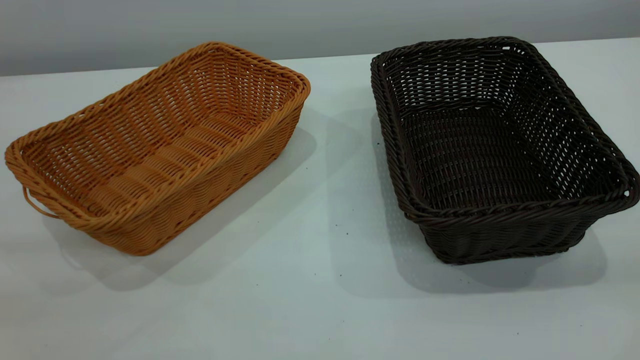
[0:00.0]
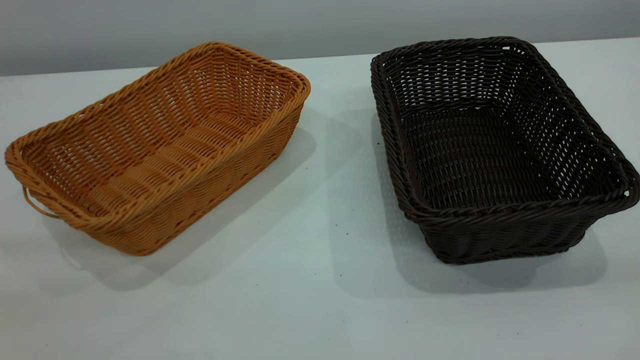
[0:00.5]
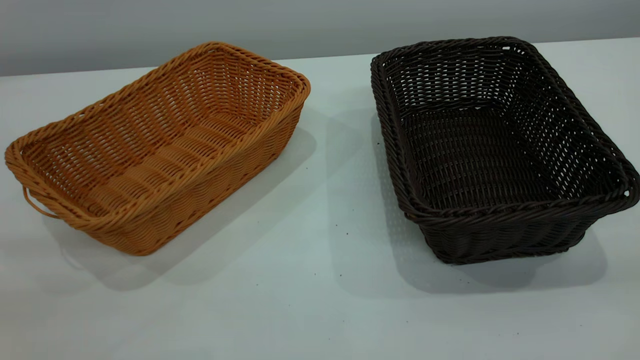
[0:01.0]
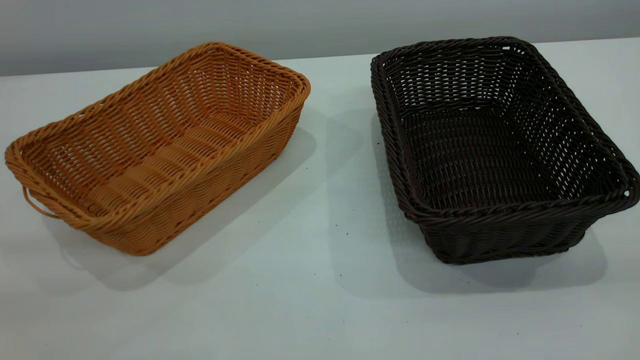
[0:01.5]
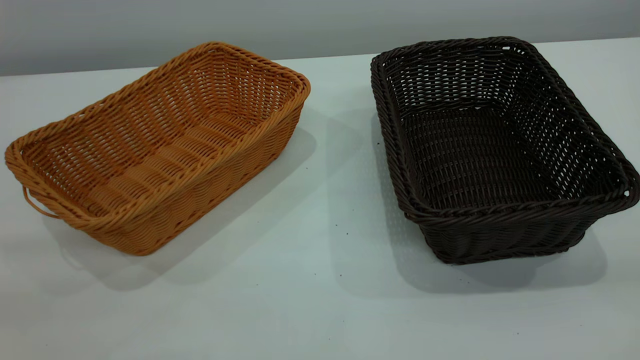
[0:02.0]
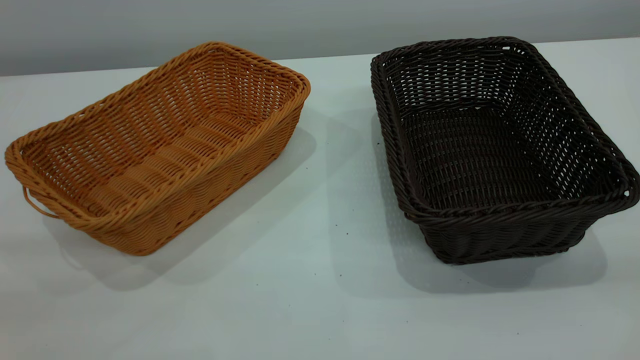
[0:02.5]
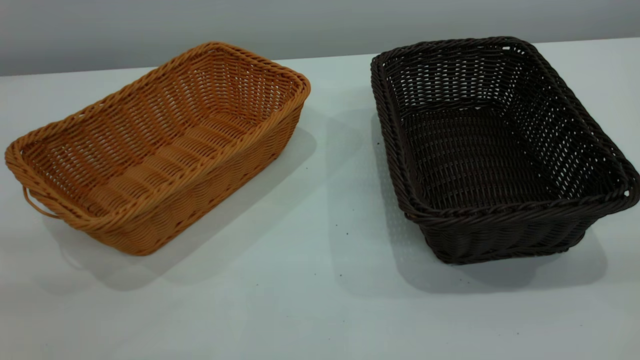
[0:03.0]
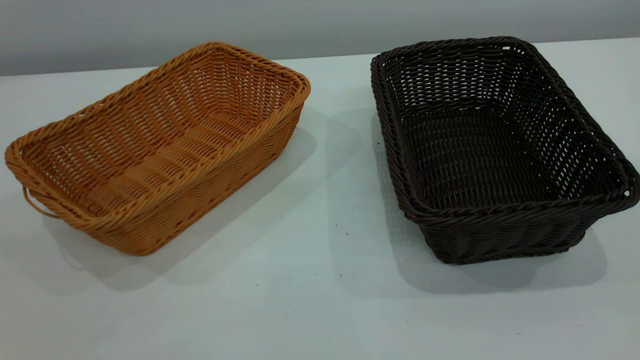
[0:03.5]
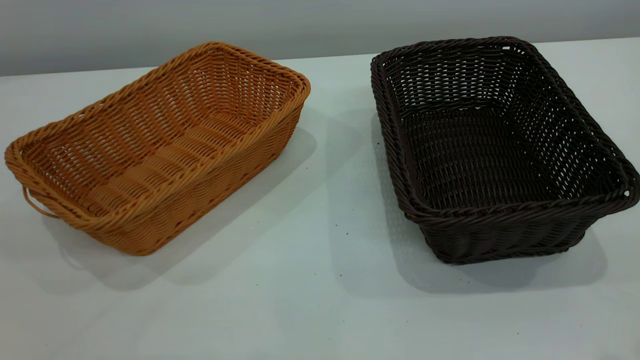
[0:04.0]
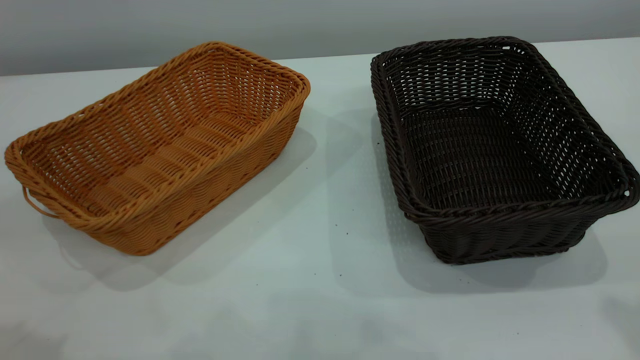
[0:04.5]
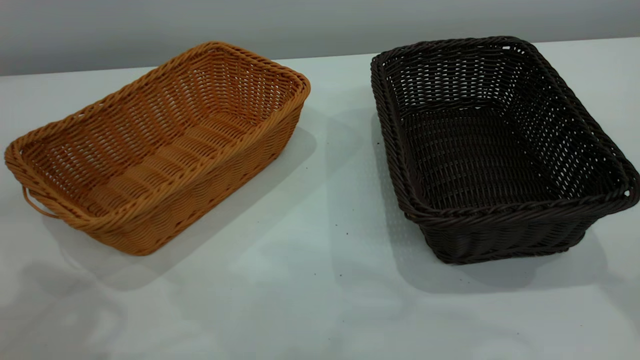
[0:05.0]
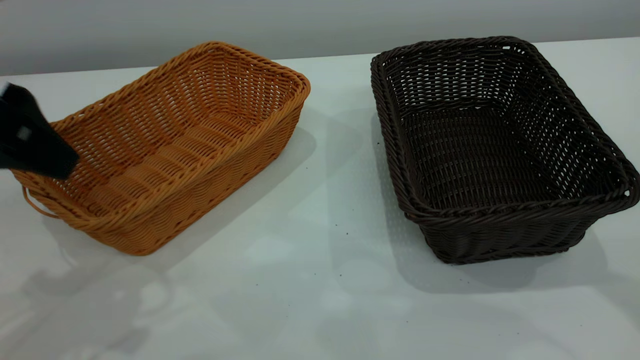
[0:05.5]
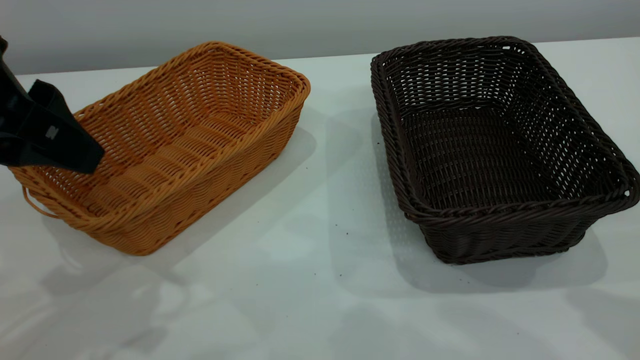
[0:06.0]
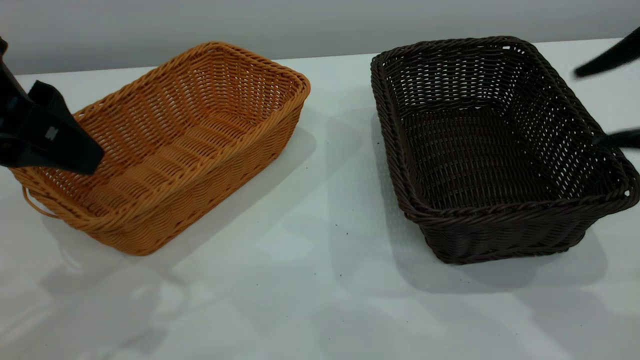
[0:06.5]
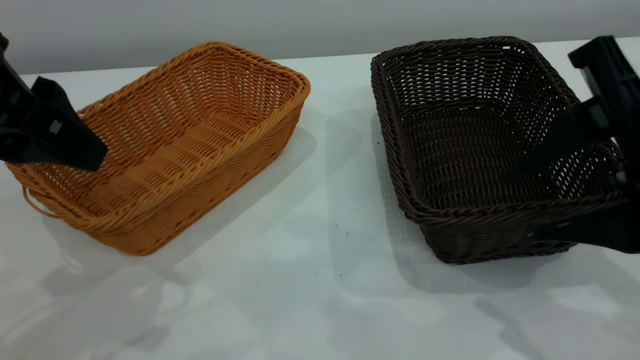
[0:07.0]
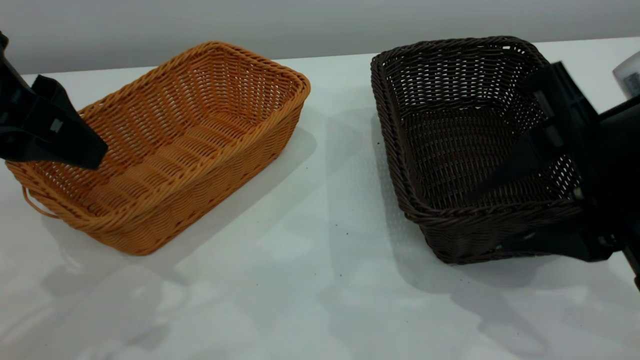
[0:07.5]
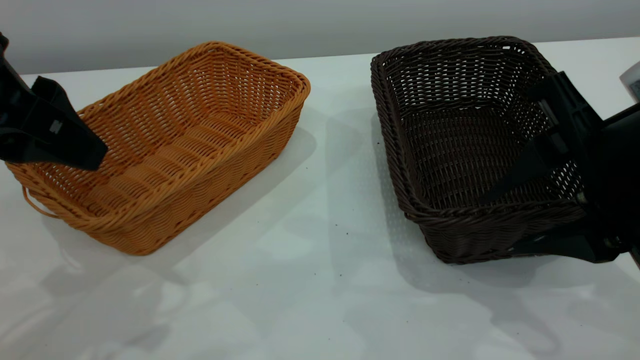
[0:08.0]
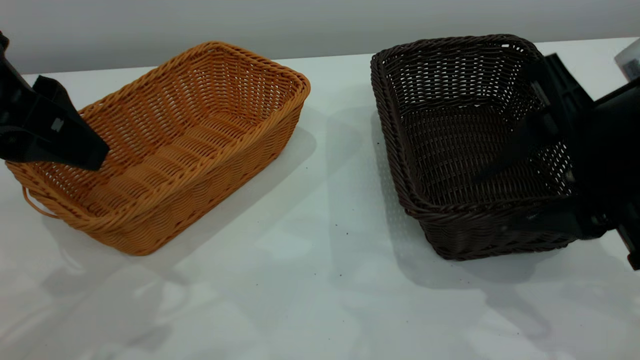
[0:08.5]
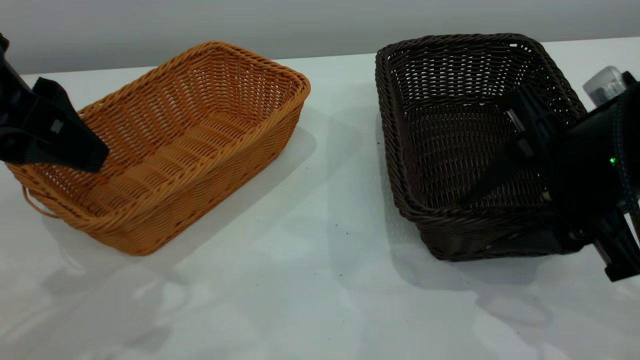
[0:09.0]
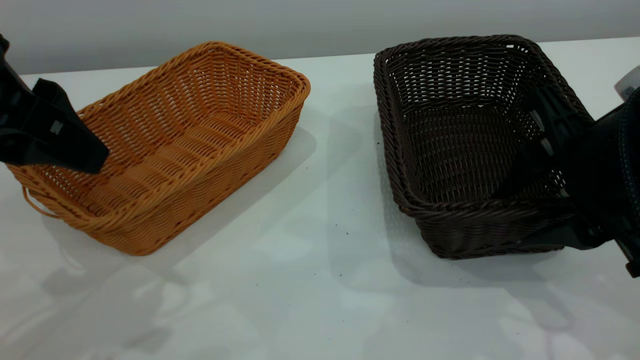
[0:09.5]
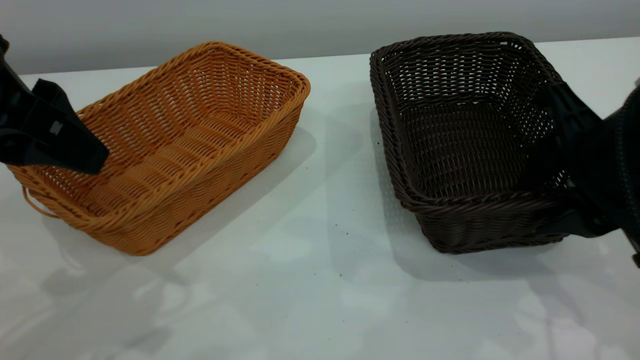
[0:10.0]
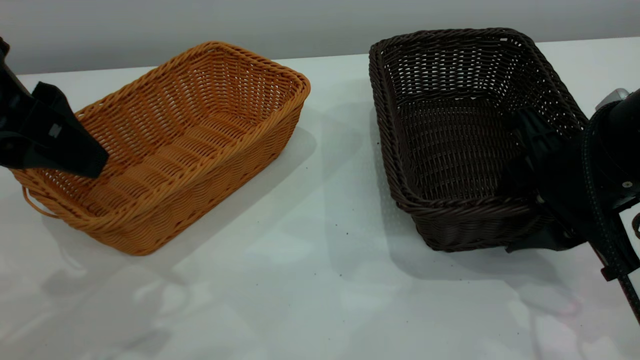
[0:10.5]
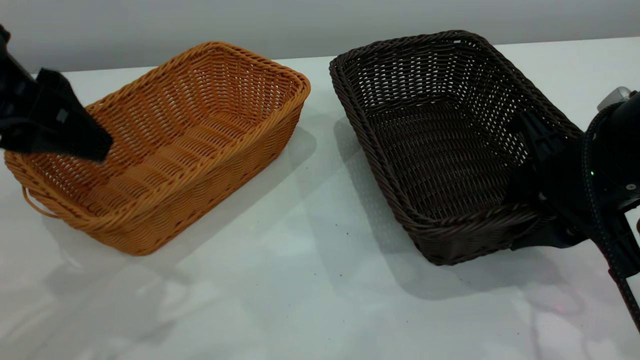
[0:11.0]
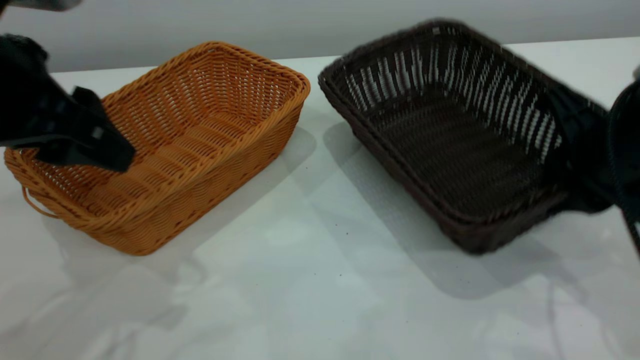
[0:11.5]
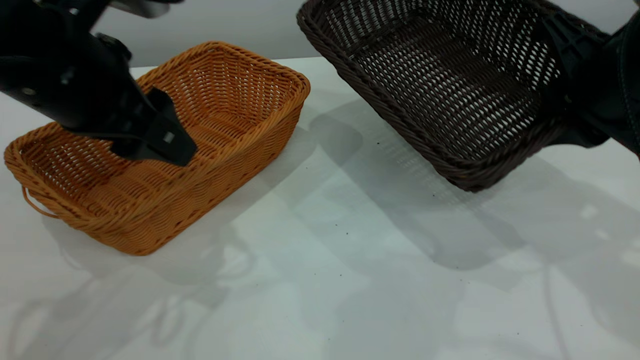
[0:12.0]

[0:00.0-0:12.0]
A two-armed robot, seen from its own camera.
Task of the whole recording: the left gripper grasp the brown basket and place it in the center of the table, the right gripper grasp the black basket and place it inside the brown one.
Step, 0:00.0 to 0:11.5: Pick up the light basket with the right gripper.
0:00.0 to 0:02.0: Neither gripper changes place.
0:04.0 to 0:06.0: The left gripper travels forward and downward by about 20 cm.
0:06.0 to 0:08.0: The right gripper shifts about 15 cm downward and to the left.
0:08.0 to 0:10.0: The grippers make only small movements.
0:10.0 to 0:12.0: The left gripper moves forward, some 5 cm. The right gripper moves some 5 cm, and closes its fingers.

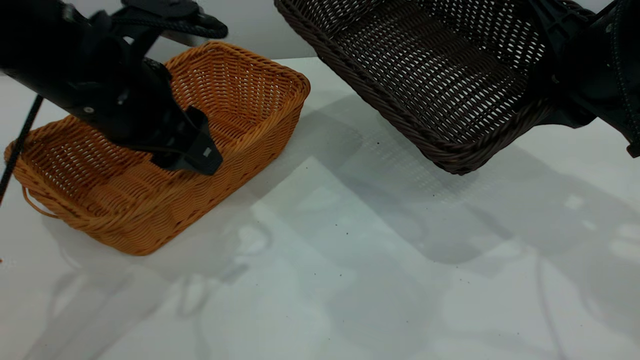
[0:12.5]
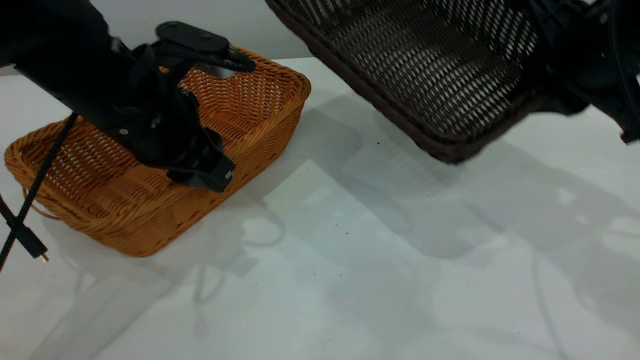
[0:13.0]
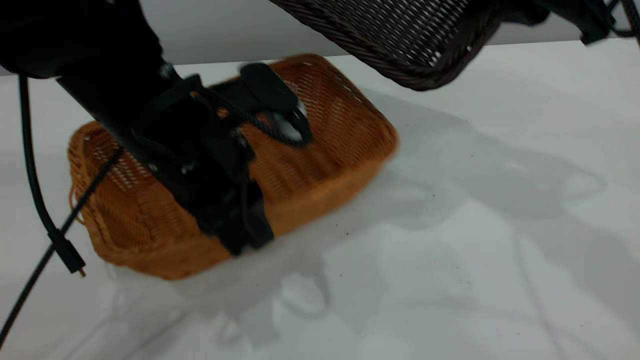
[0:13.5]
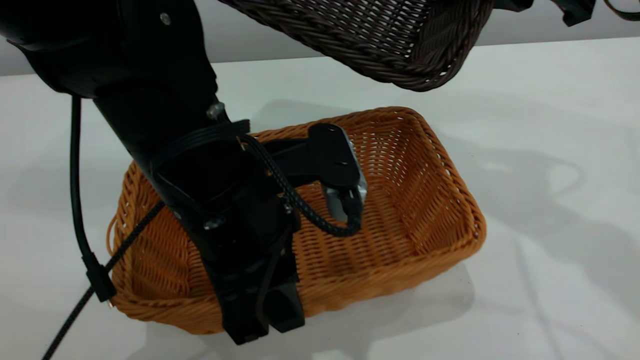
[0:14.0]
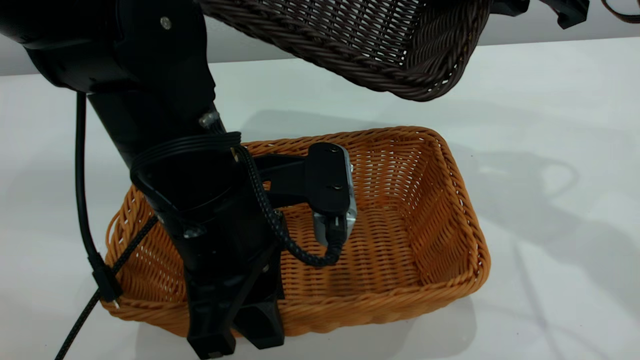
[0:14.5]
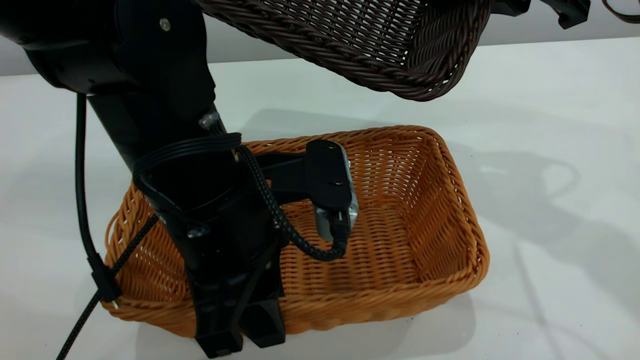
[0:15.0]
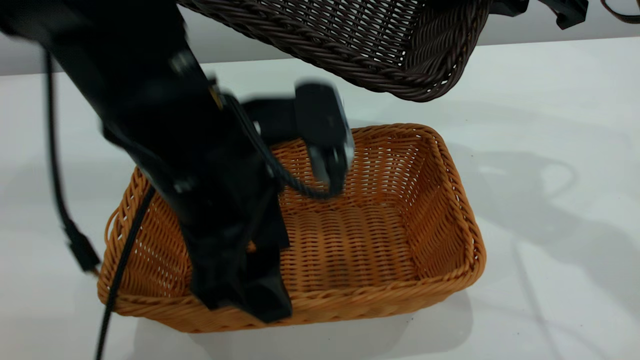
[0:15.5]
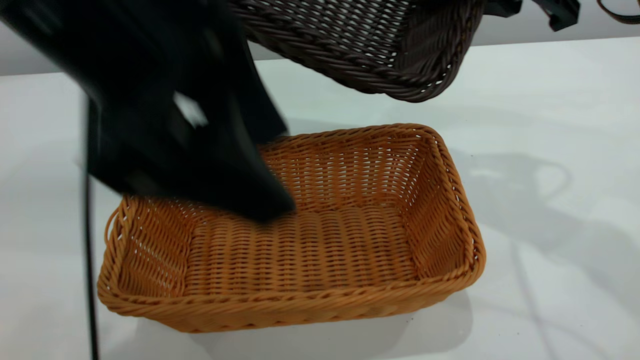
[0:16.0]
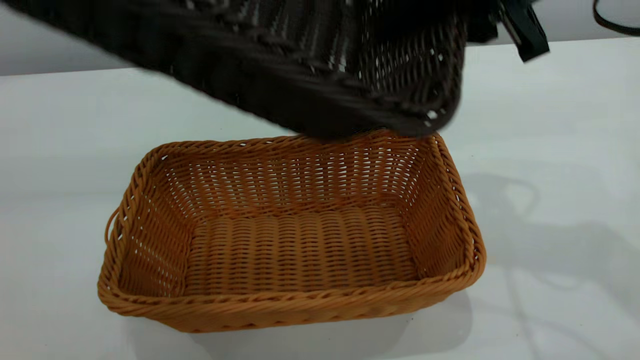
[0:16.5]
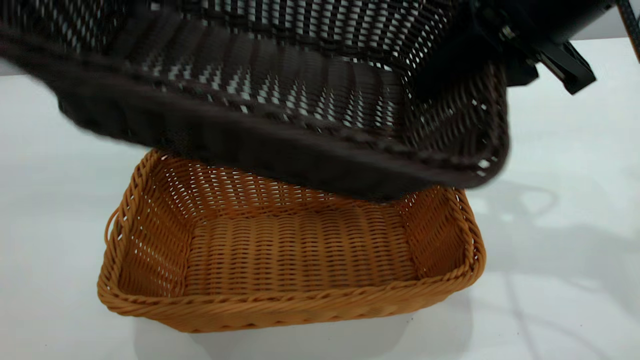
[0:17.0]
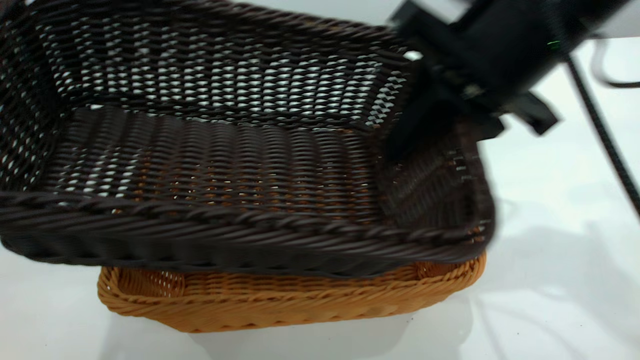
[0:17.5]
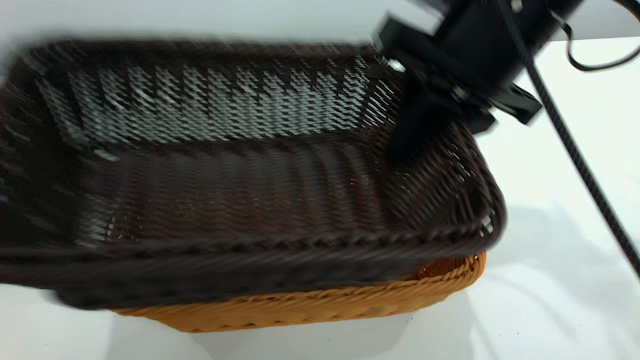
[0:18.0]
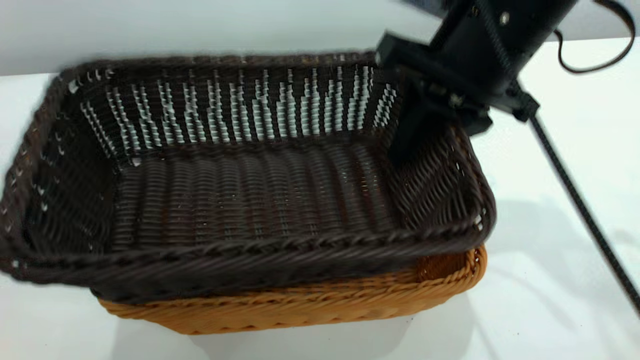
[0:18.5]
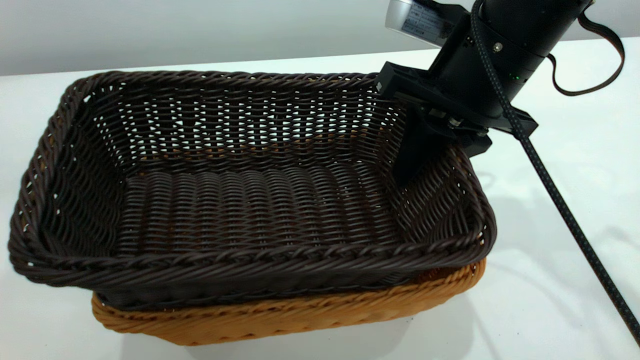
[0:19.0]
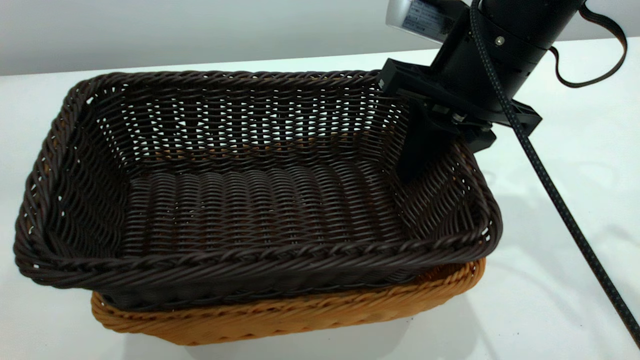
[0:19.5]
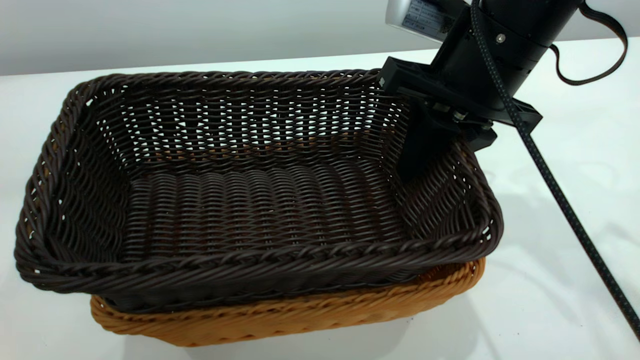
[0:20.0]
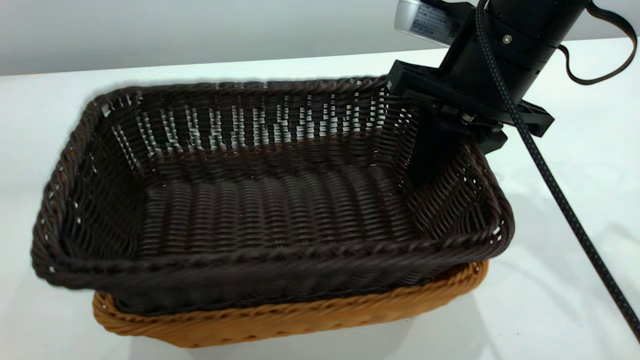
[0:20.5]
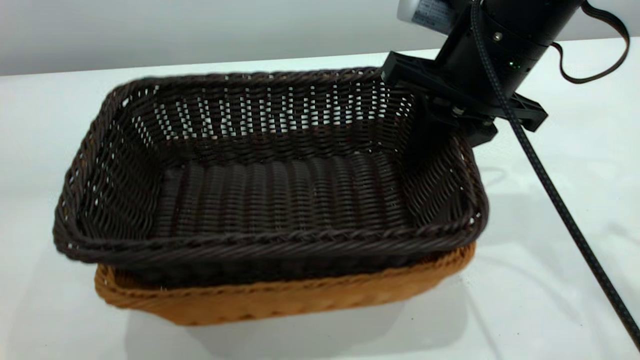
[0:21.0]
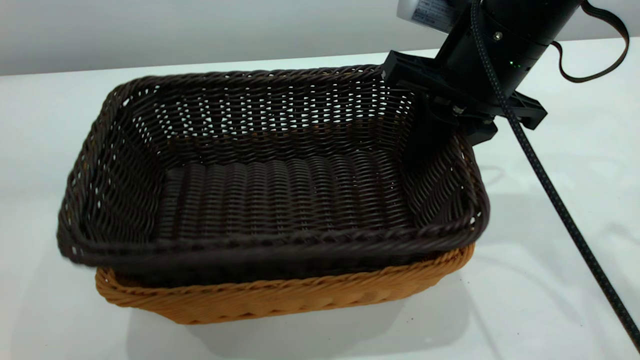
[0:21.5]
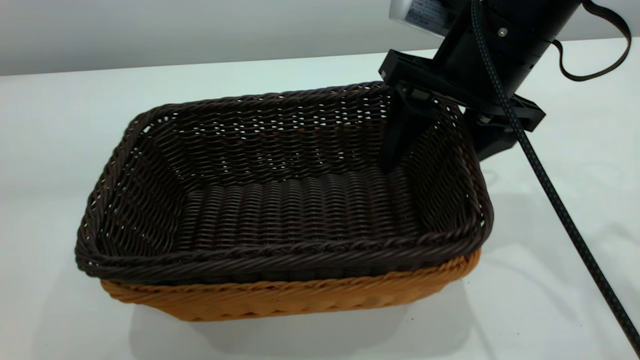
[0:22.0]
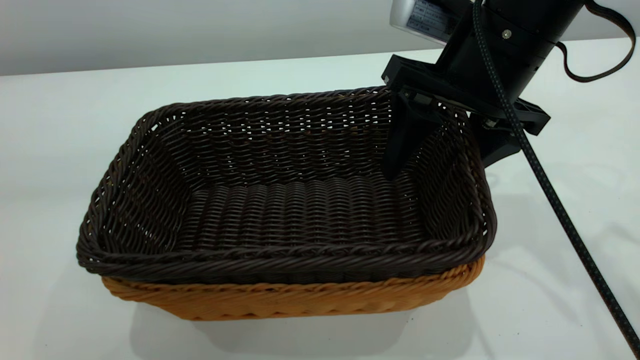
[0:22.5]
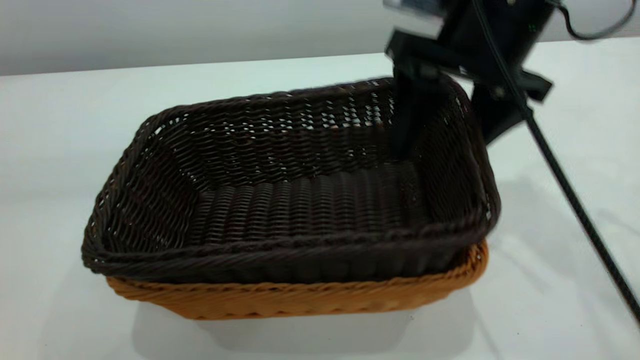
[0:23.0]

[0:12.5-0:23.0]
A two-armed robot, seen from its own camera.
Task of the whole recording: the left gripper grasp the brown basket and place it in the center of the table, the right gripper grasp the black basket and place it inside the brown one.
Step, 0:12.5 to 0:15.0: Place the light-colored basket in the center.
0:12.5 to 0:14.5: The left gripper moves backward and to the right, approximately 10 cm, and closes up; the right gripper goes roughly 5 cm upward.
0:14.5 to 0:16.5: The left gripper shifts roughly 30 cm upward, and opens up.
0:16.5 to 0:19.0: The right gripper travels downward by approximately 10 cm.
0:21.0 to 0:23.0: The right gripper opens its fingers.
